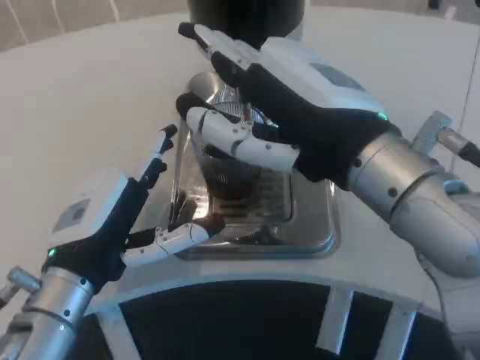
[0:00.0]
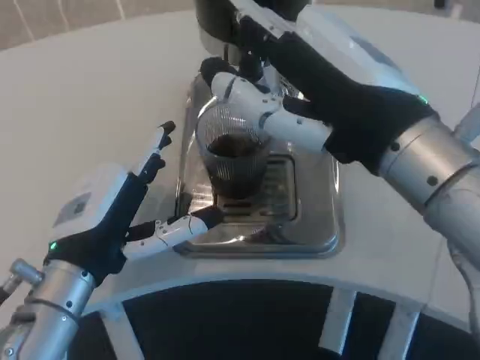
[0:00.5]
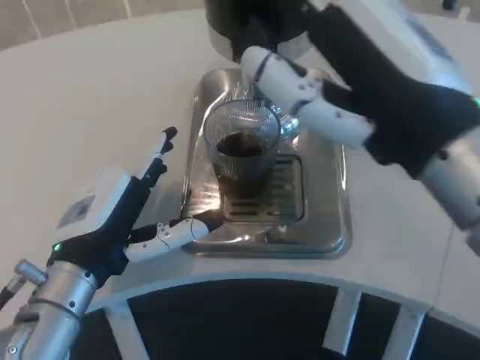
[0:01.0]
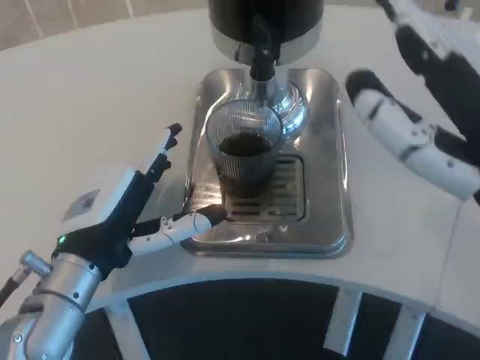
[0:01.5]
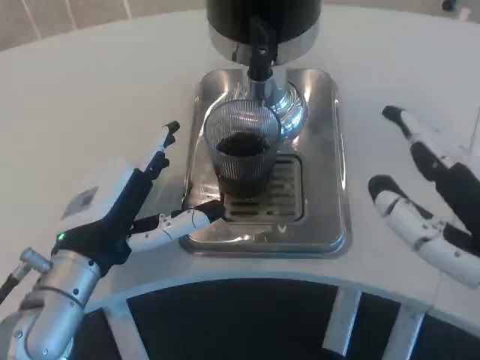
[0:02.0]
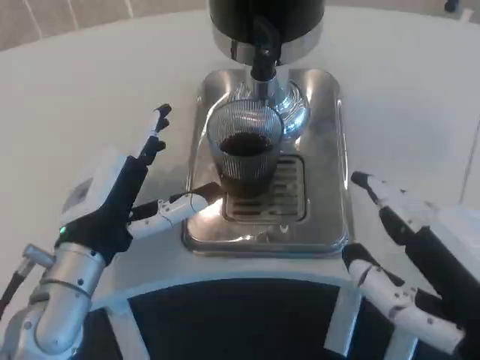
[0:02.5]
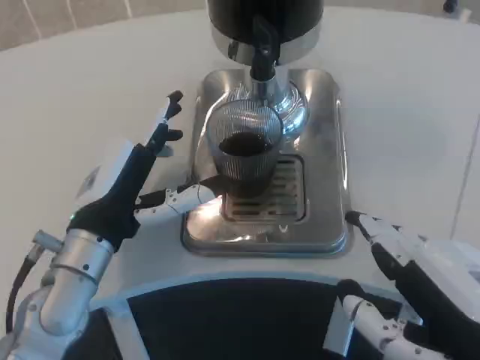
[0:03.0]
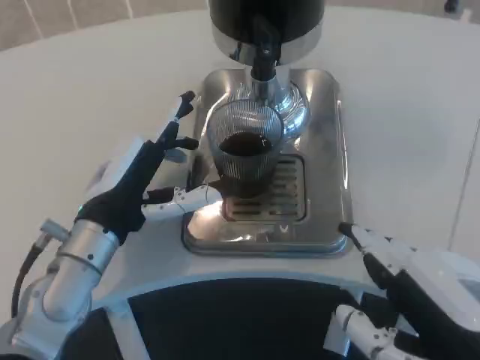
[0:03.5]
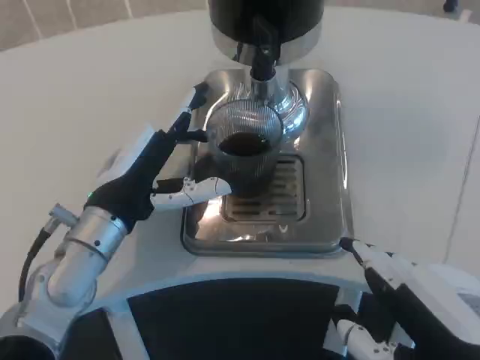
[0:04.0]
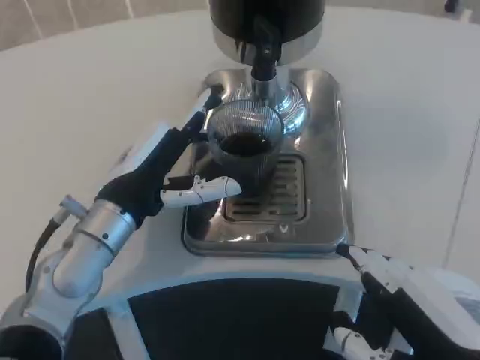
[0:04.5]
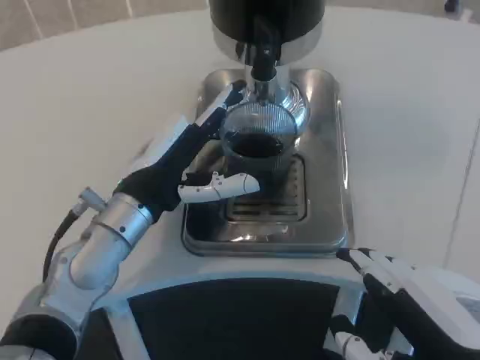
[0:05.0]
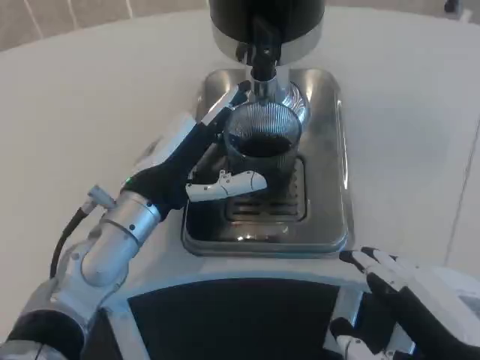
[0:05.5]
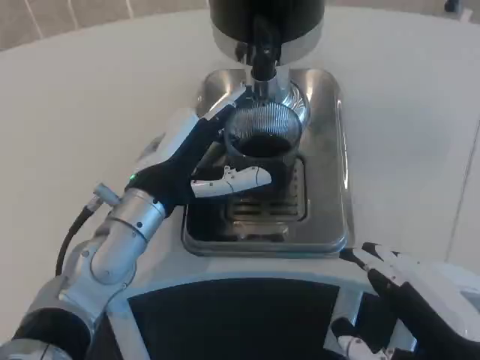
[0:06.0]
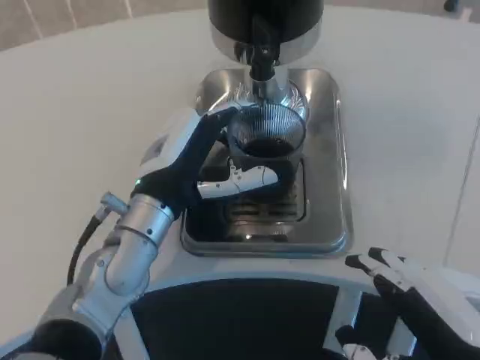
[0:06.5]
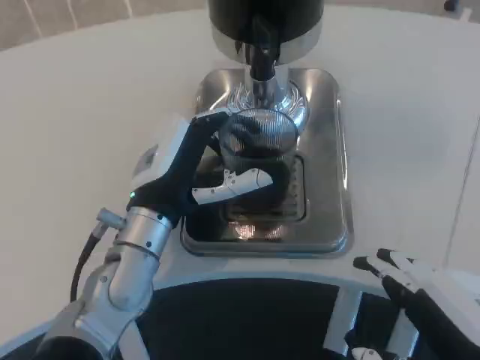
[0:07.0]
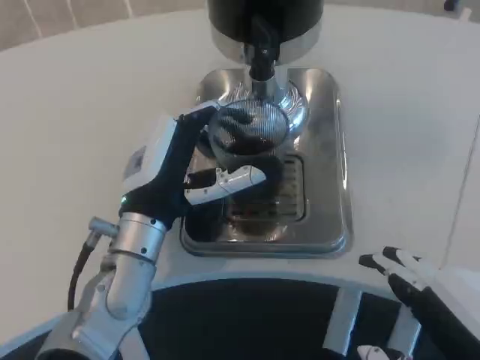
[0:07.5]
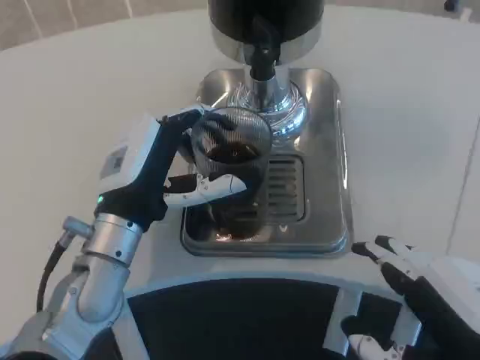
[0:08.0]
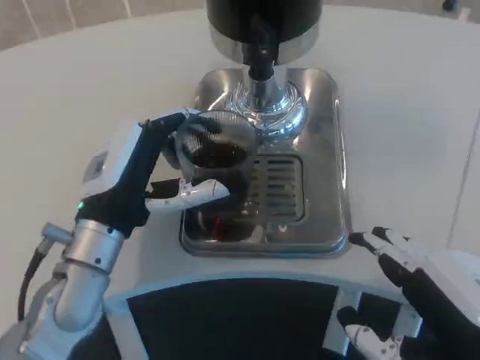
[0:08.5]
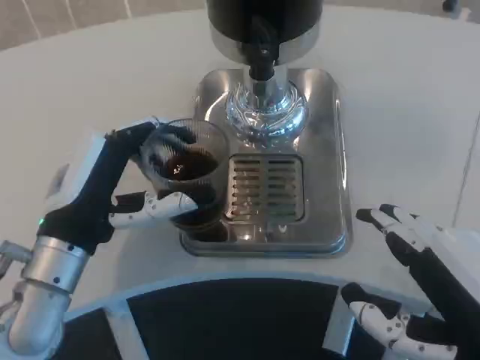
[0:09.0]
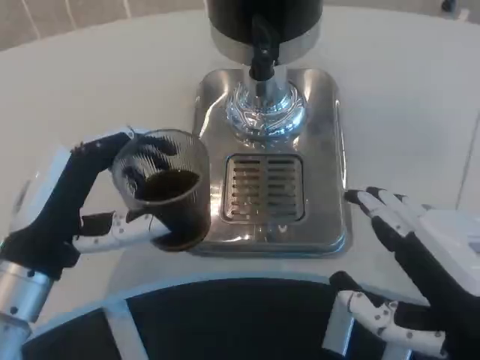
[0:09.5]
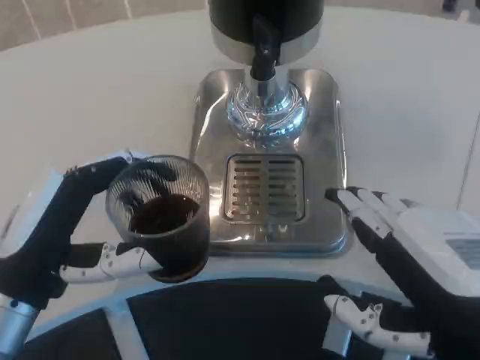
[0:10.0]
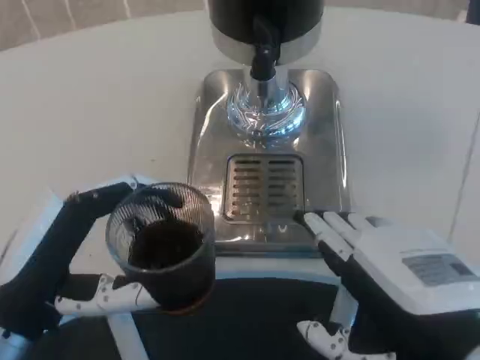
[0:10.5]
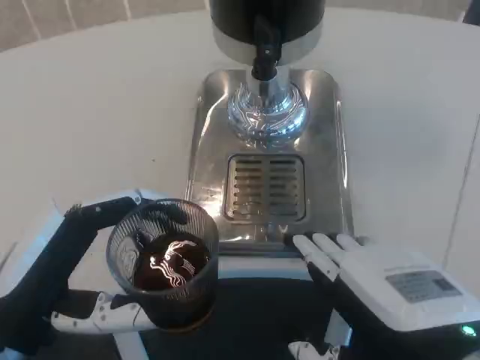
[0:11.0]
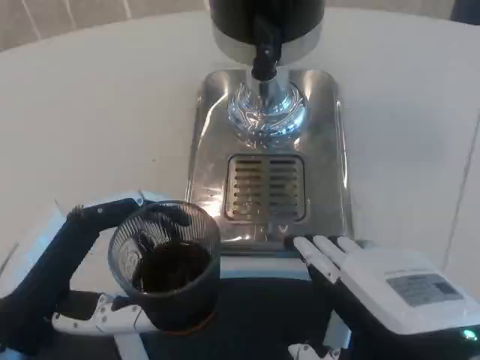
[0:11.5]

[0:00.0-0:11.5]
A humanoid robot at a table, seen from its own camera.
Task of the whole recording: Grasp the cup under the faucet to collect the drink, then remove the cup.
0:00.0 to 0:02.0: The right hand moves backward, to the right and downward, approximately 15 cm.
0:02.0 to 0:04.0: The right hand changes place by some 5 cm. Meanwhile the left hand moves forward, some 5 cm.
0:04.0 to 0:07.5: The hands make only small movements.
0:07.5 to 0:09.5: The left hand shifts roughly 10 cm to the left and backward.
0:09.5 to 0:11.5: The left hand travels backward by approximately 5 cm.

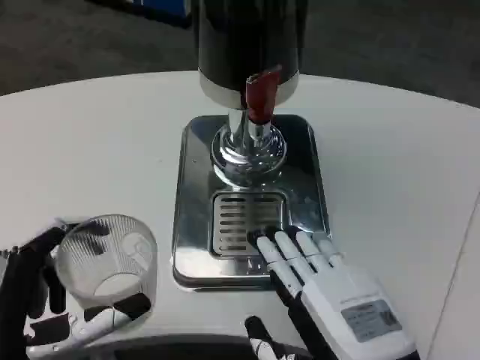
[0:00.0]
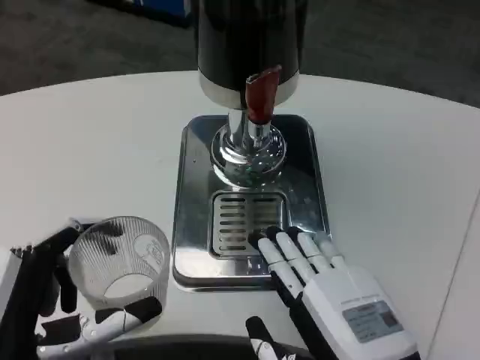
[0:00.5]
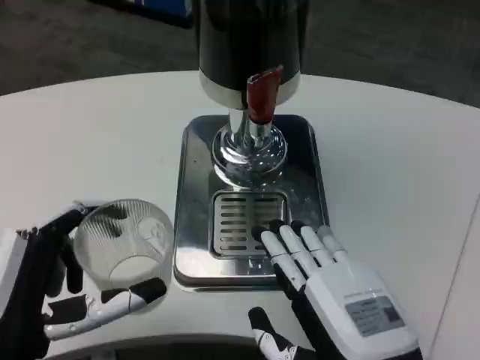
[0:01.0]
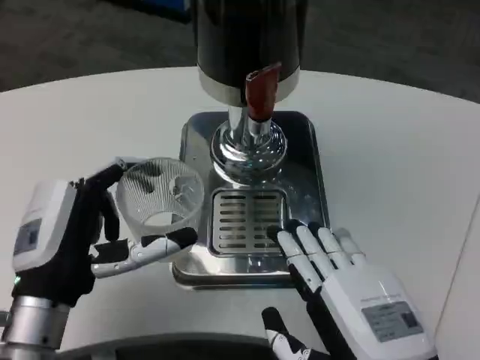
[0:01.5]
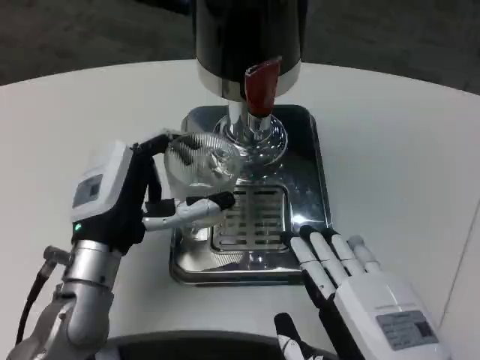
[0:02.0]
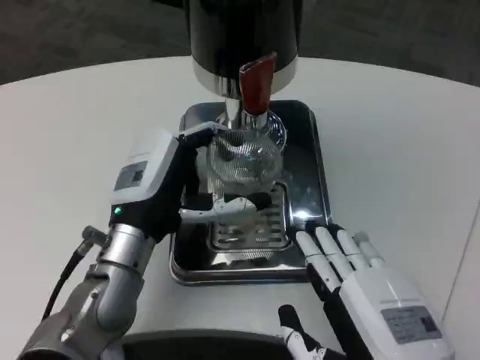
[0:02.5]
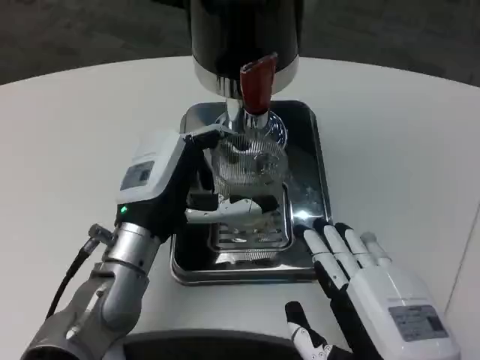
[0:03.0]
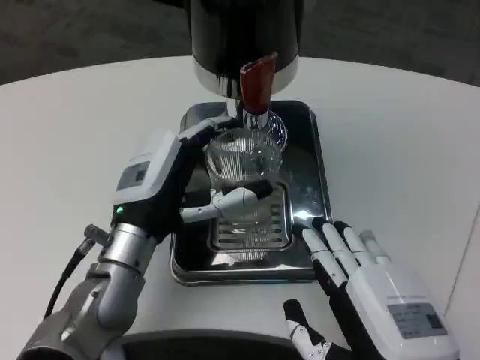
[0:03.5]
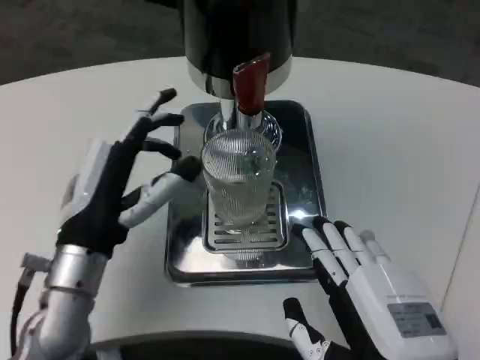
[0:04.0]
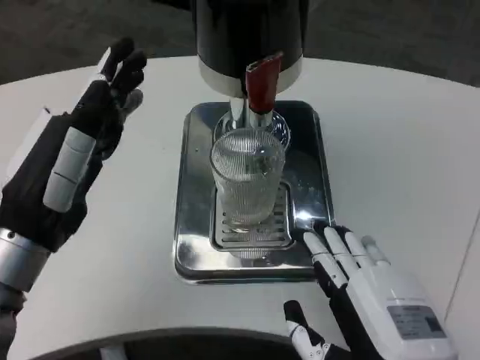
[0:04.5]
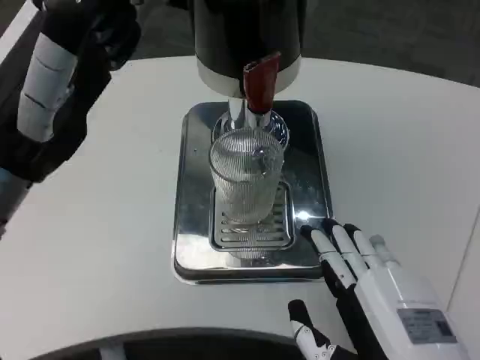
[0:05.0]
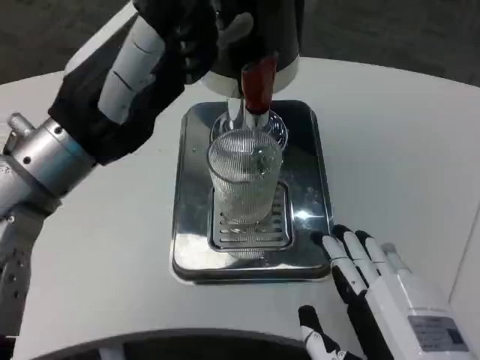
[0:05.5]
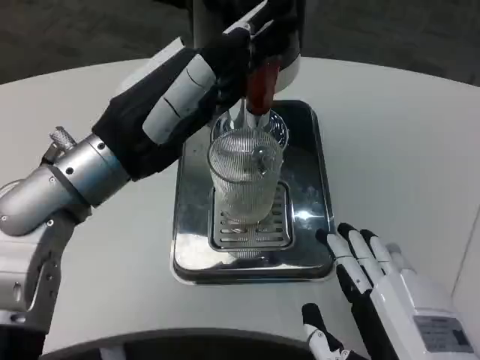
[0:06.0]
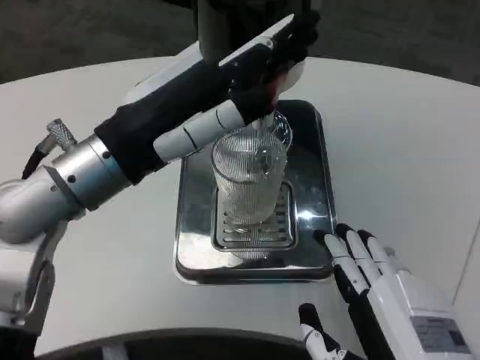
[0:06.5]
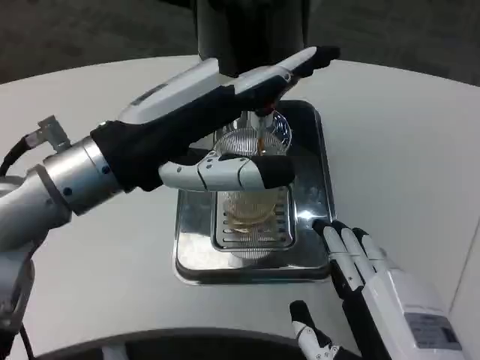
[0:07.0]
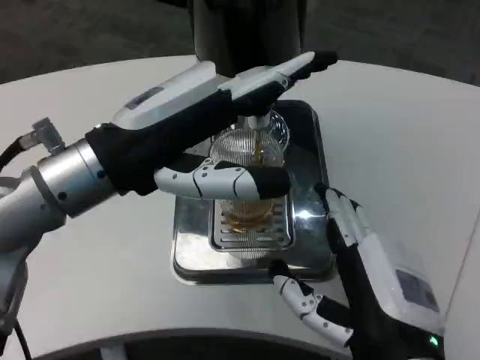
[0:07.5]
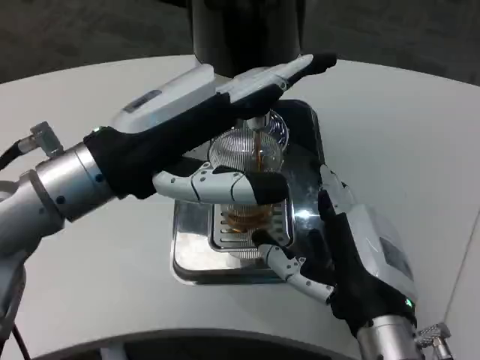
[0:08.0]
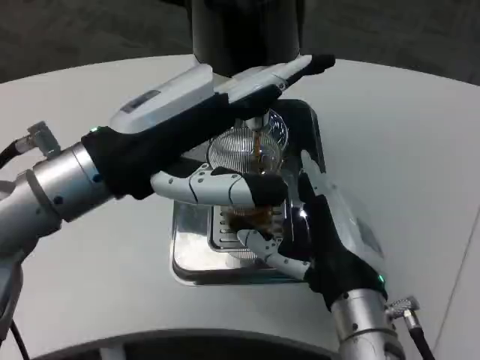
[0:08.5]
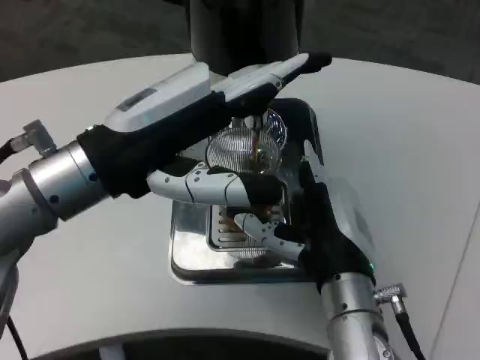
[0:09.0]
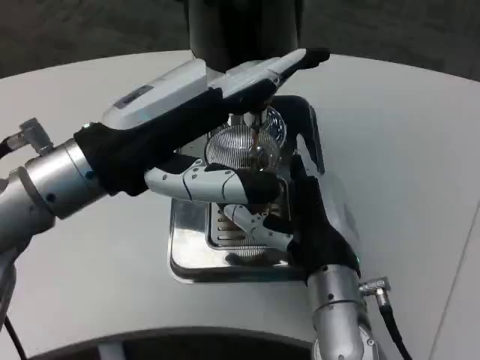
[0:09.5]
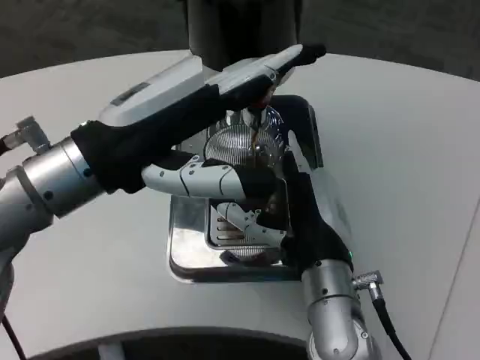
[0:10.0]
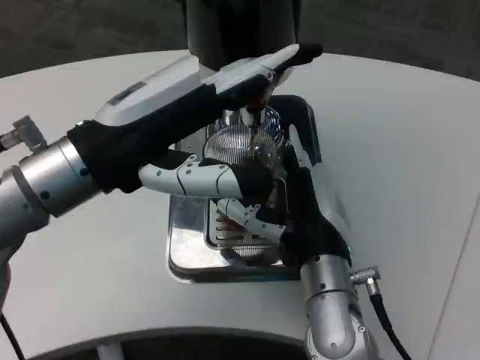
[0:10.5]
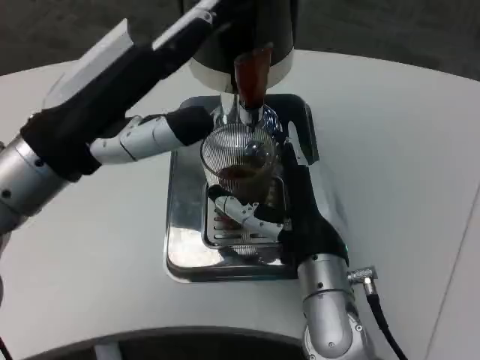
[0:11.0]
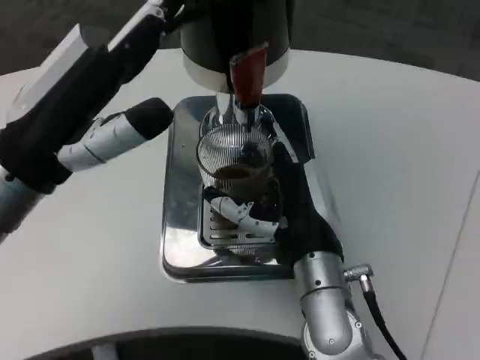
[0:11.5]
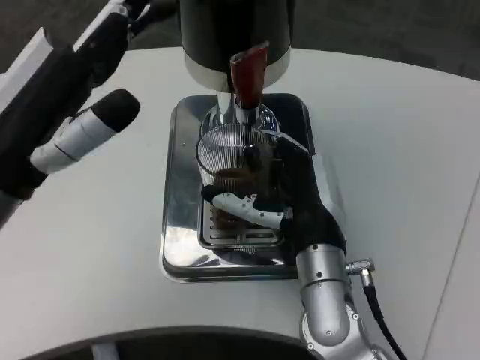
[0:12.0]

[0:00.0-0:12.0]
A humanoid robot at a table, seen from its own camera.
Task of the whole recording: Grasp the cup under the faucet to collect the drink, then remove the cup.
0:00.0 to 0:02.0: The left hand goes about 15 cm forward.
0:04.0 to 0:06.0: The left hand is displaced upward by about 15 cm.
0:06.0 to 0:08.0: The right hand heads forward, covering some 10 cm.
0:08.0 to 0:10.0: The right hand heads forward, covering roughly 5 cm.
0:10.0 to 0:12.0: The left hand changes place by approximately 5 cm.

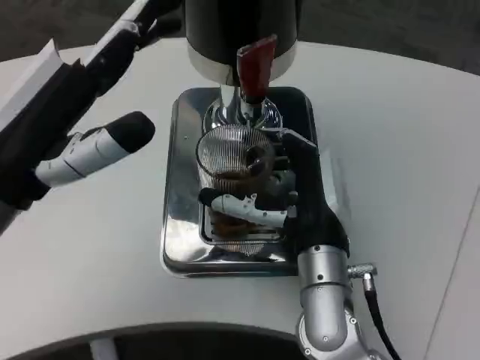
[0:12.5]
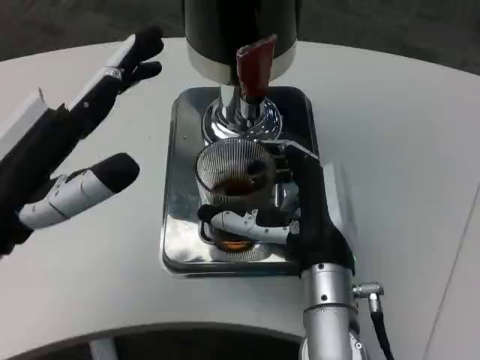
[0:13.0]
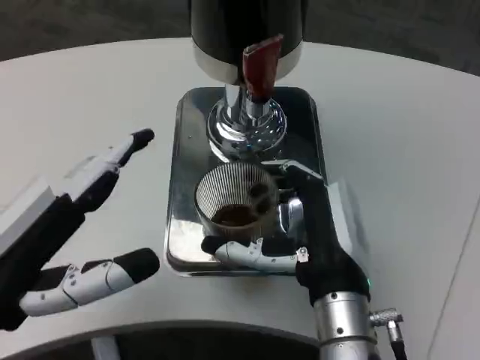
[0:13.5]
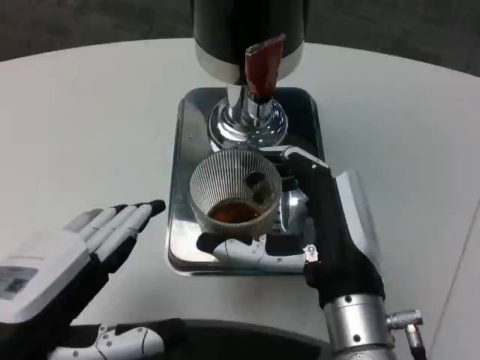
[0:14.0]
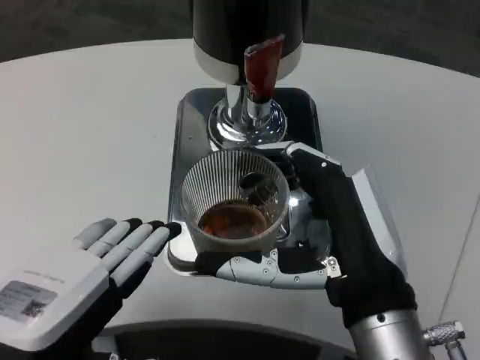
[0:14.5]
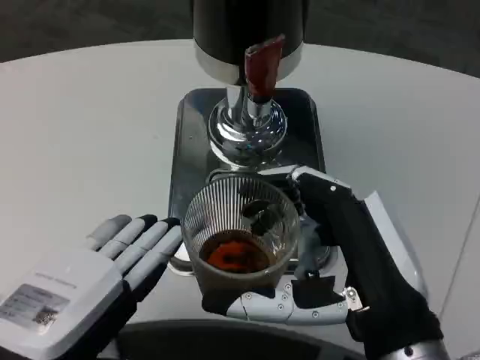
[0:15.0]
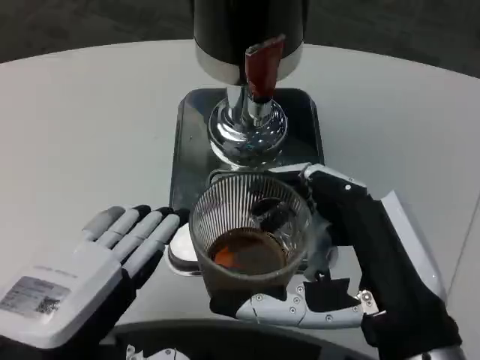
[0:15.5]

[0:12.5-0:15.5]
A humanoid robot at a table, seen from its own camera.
Task of the whole recording: Grasp the cup under the faucet to collect the drink, then remove the cup.
0:12.5 to 0:14.0: The right hand travels backward by about 5 cm. Meanwhile the left hand is displaced backward and downward by some 10 cm.
0:14.0 to 0:15.5: The right hand moves backward, approximately 5 cm.
